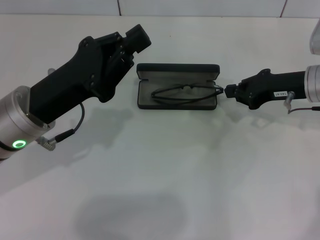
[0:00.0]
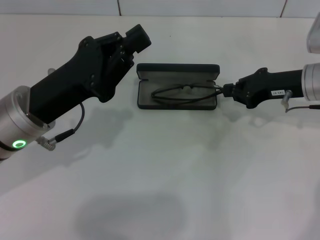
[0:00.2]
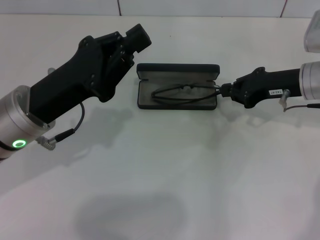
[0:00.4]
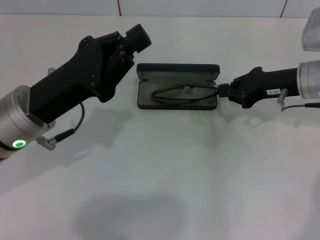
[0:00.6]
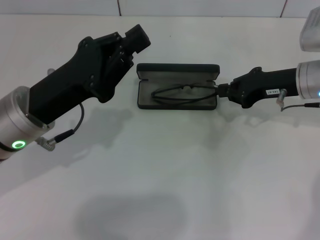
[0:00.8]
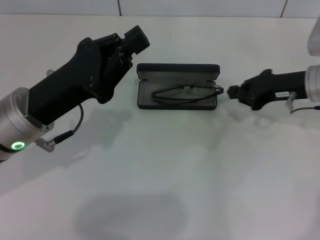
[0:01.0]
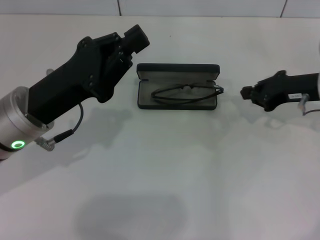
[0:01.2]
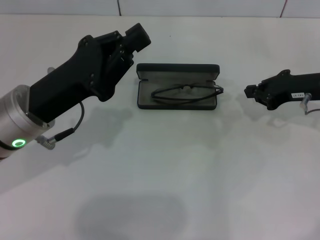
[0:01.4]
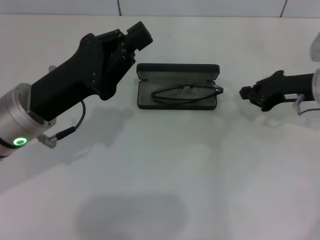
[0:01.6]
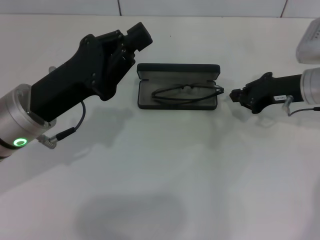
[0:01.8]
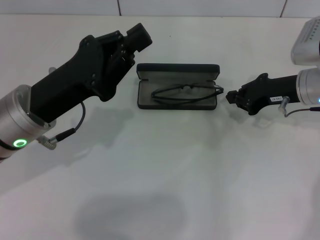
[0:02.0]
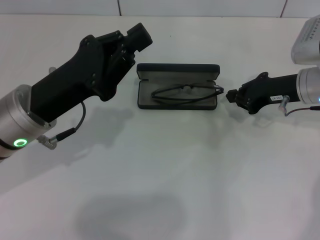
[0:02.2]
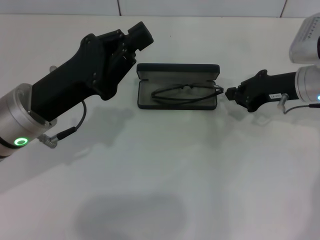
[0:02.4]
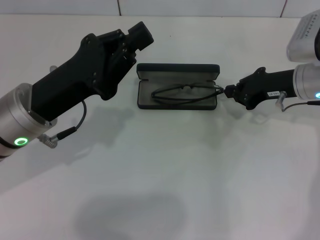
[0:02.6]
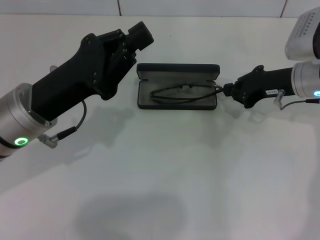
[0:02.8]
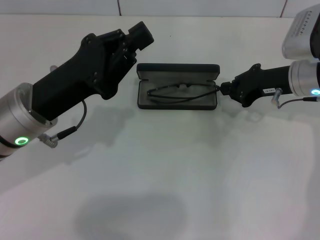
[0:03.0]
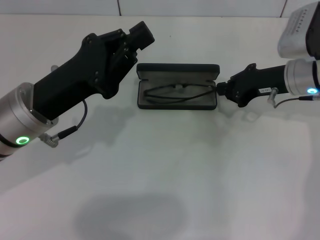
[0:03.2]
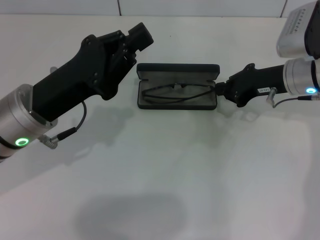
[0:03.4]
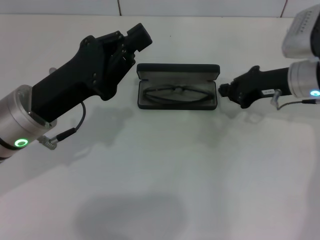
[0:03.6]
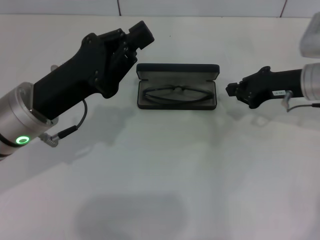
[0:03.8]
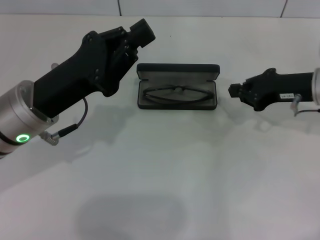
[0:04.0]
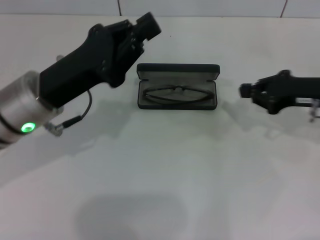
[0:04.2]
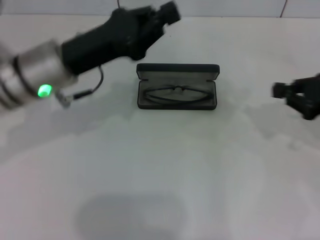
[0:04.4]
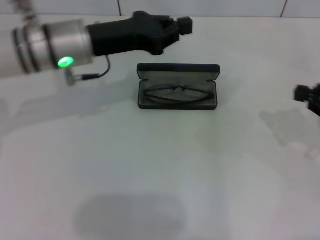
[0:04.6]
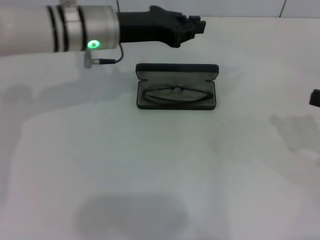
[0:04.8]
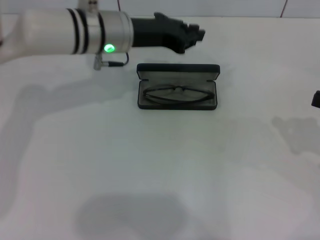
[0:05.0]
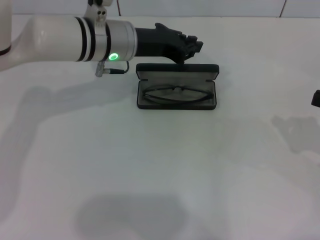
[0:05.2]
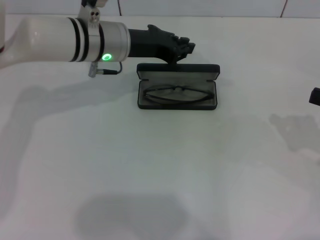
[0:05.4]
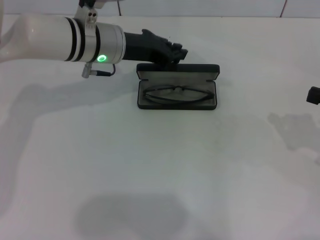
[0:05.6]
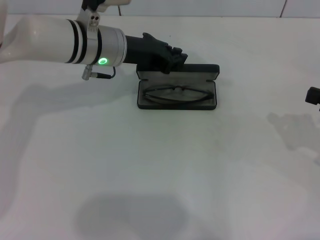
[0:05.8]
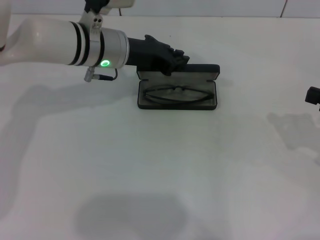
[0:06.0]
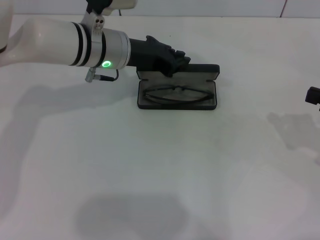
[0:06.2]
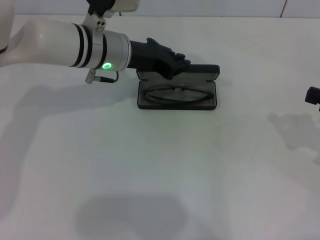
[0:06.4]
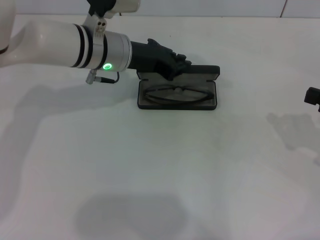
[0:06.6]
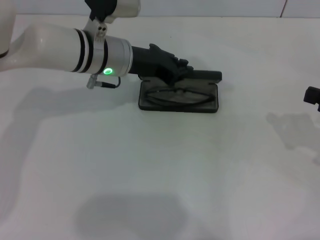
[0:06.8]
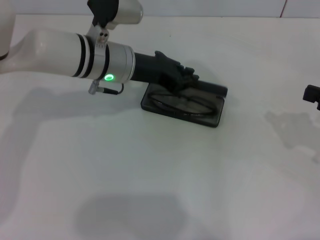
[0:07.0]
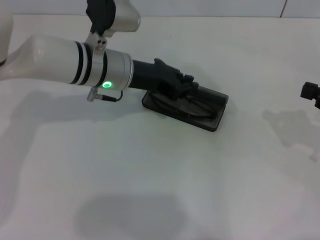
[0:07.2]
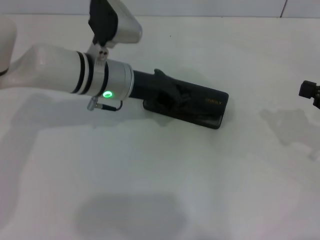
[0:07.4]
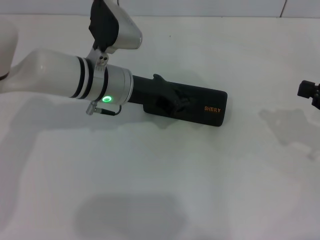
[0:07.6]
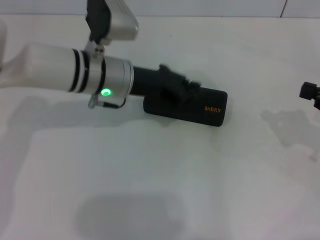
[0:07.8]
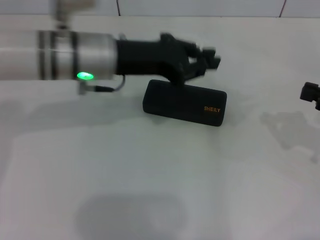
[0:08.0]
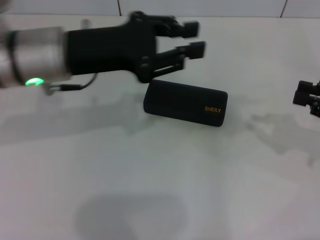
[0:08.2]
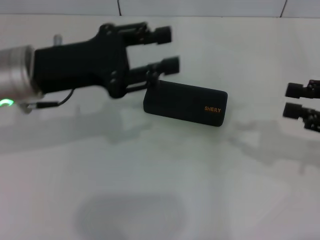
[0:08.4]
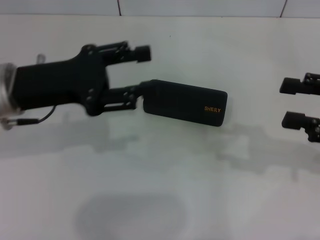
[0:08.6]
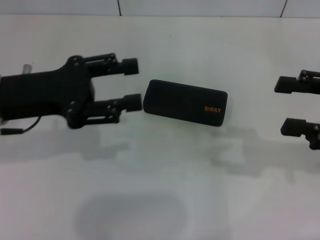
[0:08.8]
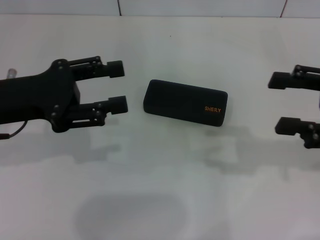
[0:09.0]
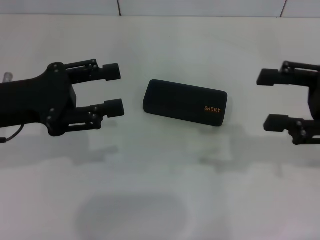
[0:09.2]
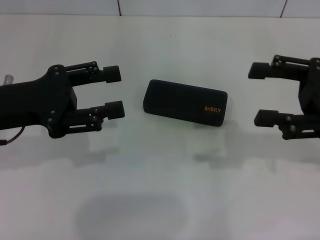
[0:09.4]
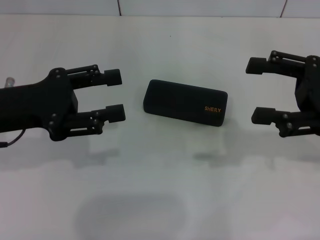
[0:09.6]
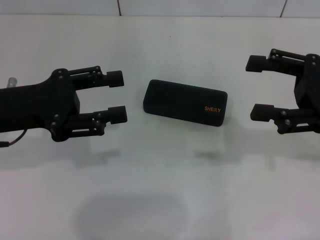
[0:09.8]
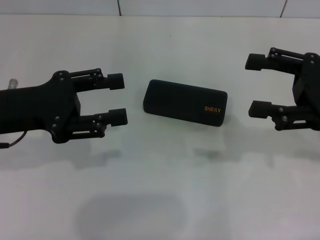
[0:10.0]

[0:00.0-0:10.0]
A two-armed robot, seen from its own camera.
Step, 0:00.0 to 0:03.6: Put the glasses into the case with your right hand.
Step, 0:03.8 to 0:07.6: Close the glasses case with your left hand.
0:00.0 to 0:02.8: The grippers make only small movements.
0:02.8 to 0:04.2: The right gripper shifts about 5 cm backward.
0:04.2 to 0:05.8: The left gripper moves forward and to the right, some 15 cm. Meanwhile the right gripper is displaced to the right and backward by about 10 cm.
0:05.8 to 0:07.2: The grippers make only small movements.
0:07.2 to 0:08.6: The right gripper ends up roughly 5 cm from where it was; the left gripper goes about 15 cm to the left and backward, and opens up.
0:08.6 to 0:10.0: The right gripper opens its fingers.
